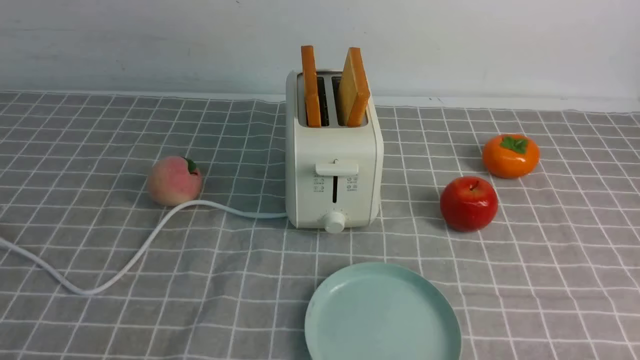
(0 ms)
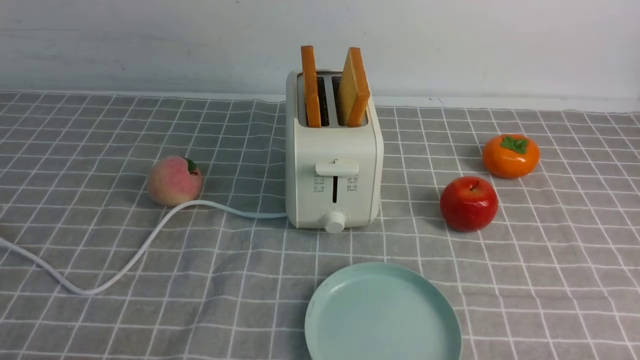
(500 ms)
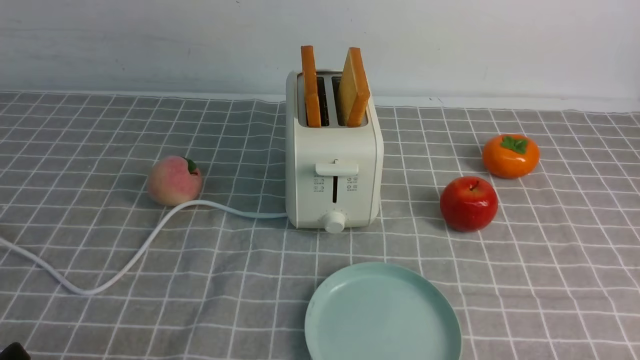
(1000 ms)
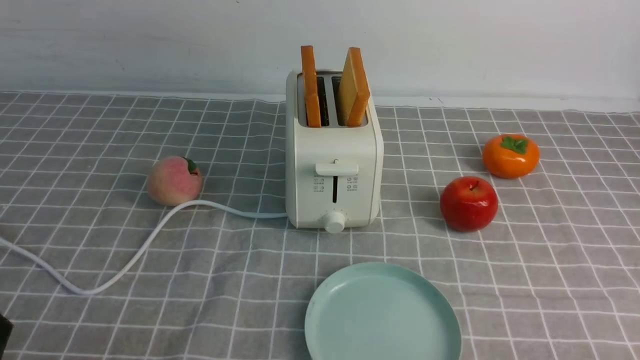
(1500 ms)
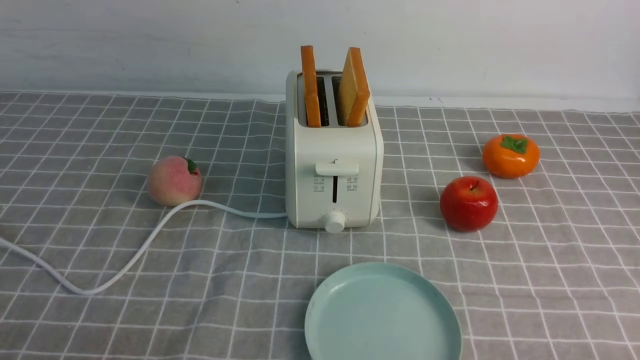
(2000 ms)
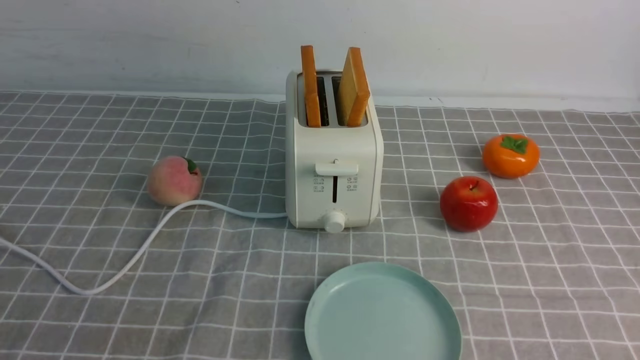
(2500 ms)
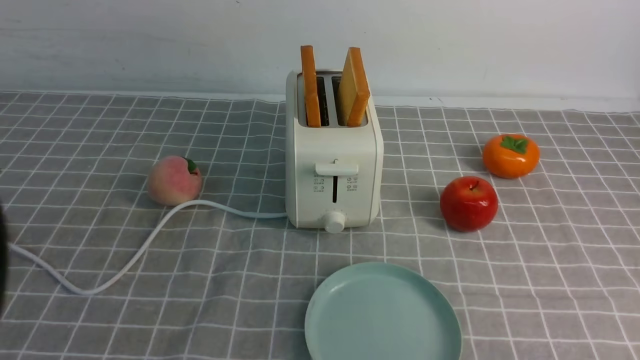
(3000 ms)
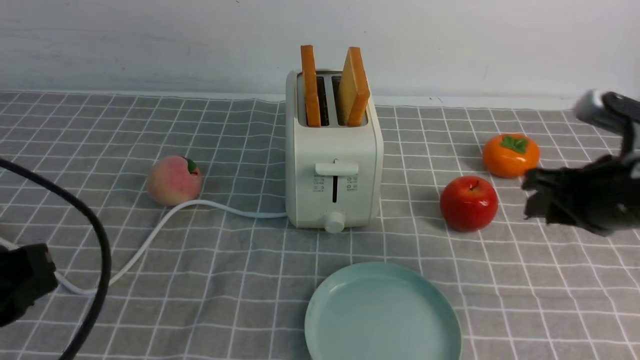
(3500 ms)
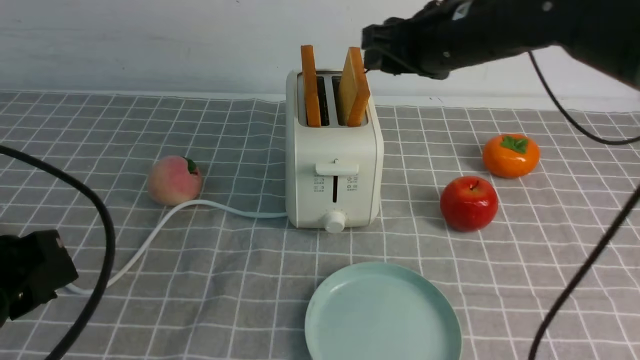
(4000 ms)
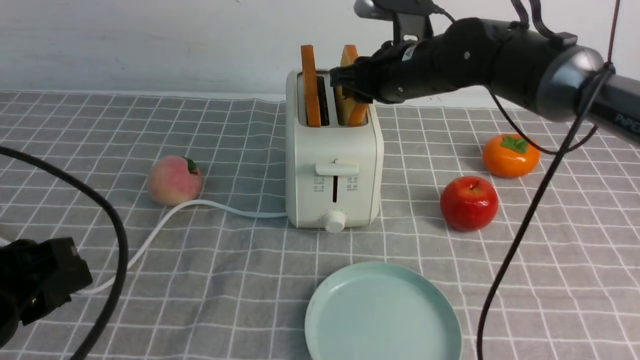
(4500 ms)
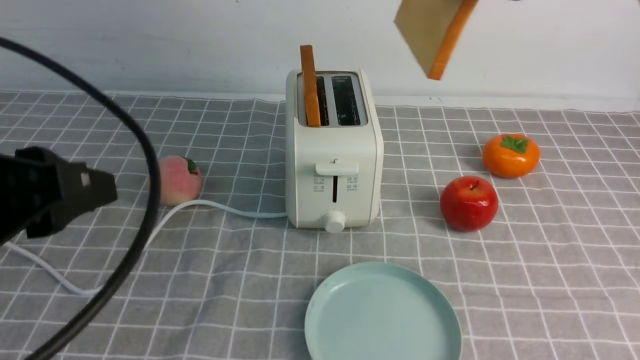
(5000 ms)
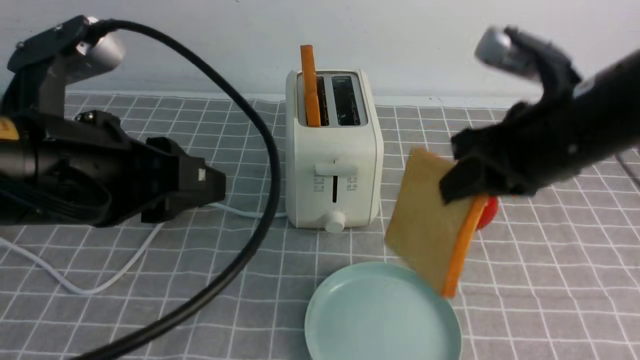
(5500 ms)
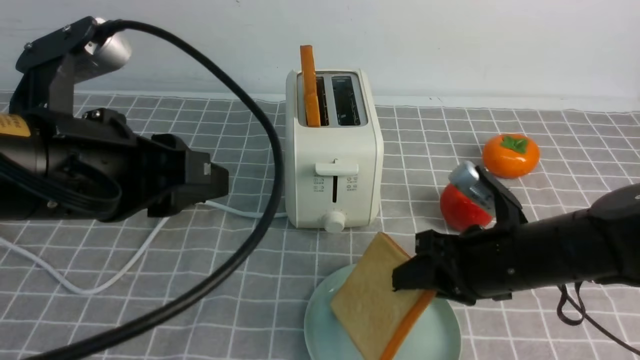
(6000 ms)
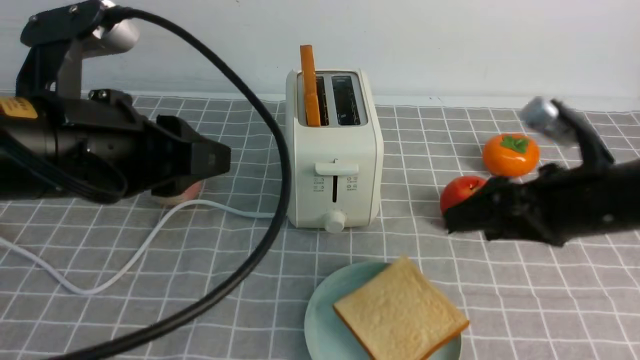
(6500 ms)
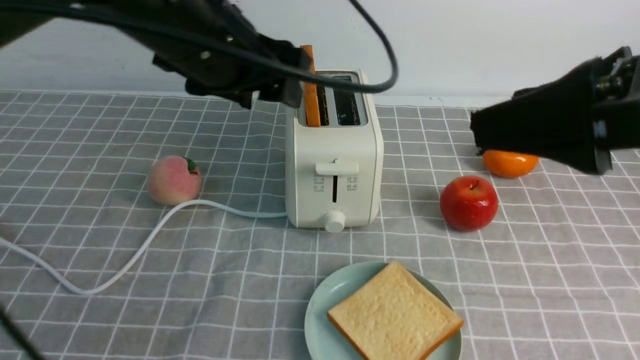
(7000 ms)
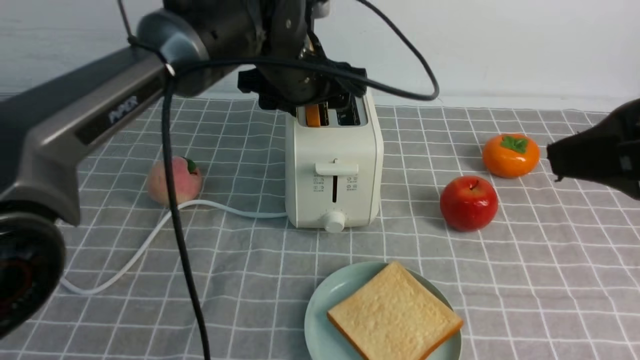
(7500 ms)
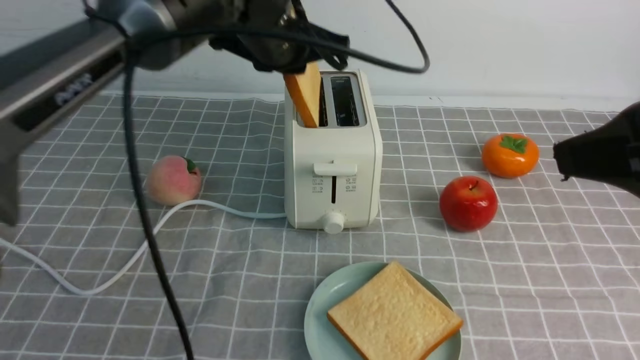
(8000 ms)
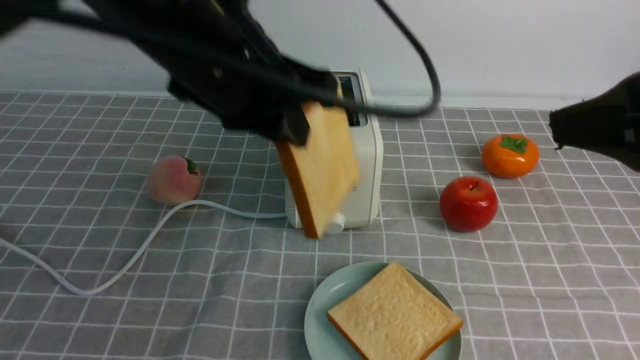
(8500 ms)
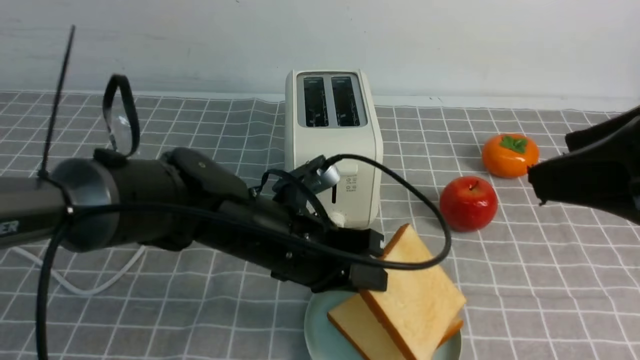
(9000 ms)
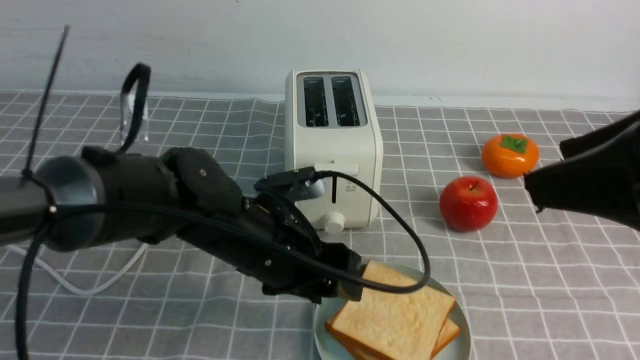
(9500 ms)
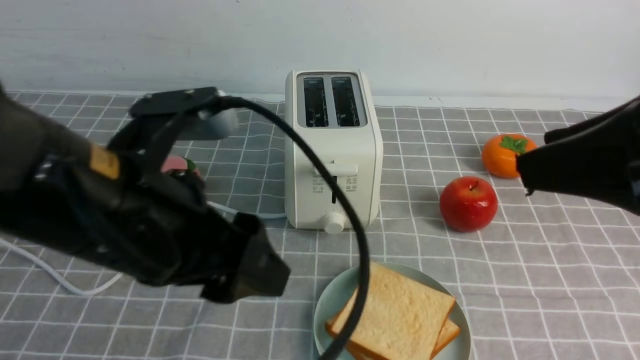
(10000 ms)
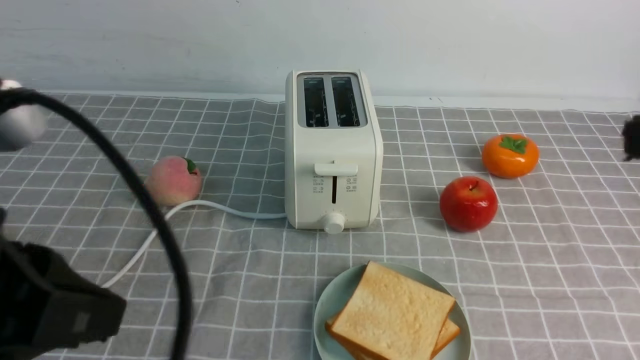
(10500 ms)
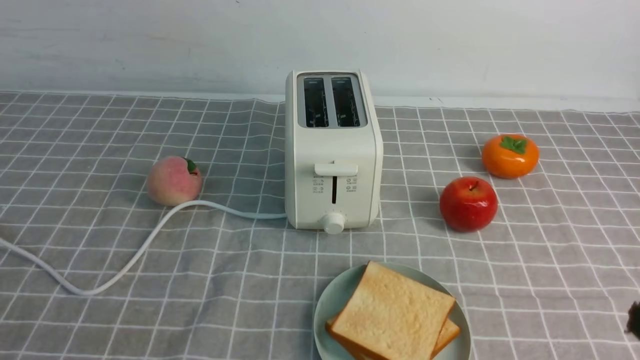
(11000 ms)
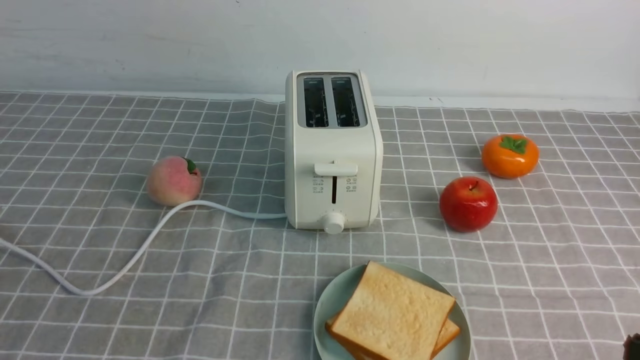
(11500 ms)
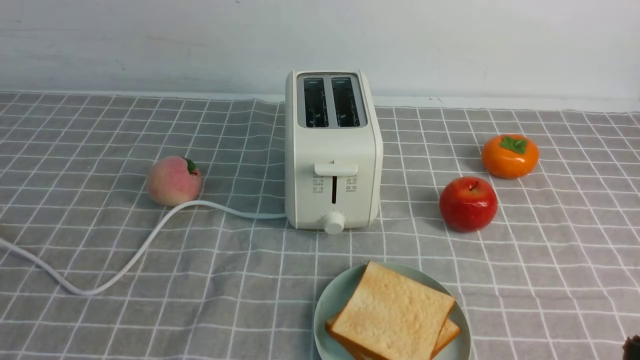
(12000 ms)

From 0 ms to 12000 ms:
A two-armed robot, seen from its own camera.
Task of the whole recording: take toasted bread from bread machine on grey coffee table place on plate.
Step, from 0 ms to 4500 ms: use the right arm to take out a slice of bread.
Step, from 5000 ms to 6000 ms: use the right arm to put a slice of bread into the plate.
Step, from 6500 ms to 7500 ms: use the left arm to take out a slice of bread.
Step, from 8500 ms to 9500 ms: use the left arm to put a slice of bread into the empty plate.
From 2000 ms to 4000 ms: The right gripper moves forward and to the left, some 40 cm. The left gripper goes about 10 cm forward and upward.
From 4000 ms to 6000 ms: The right gripper moves downward and backward, some 20 cm. Meanwhile the left gripper moves to the right, forward and upward, roughly 10 cm.
From 6000 ms to 8000 ms: The left gripper is displaced forward and to the right by roughly 20 cm, and opens and closes again. Meanwhile the right gripper is displaced upward and backward by roughly 25 cm, and opens.
From 8000 ms to 10000 ms: The left gripper travels backward by roughly 20 cm, and opens. Meanwhile the right gripper closes.
From 10000 ms to 12000 ms: The right gripper is displaced downward and backward by roughly 20 cm, and closes its fingers. The left gripper goes approximately 20 cm backward and to the left, and closes its fingers.
